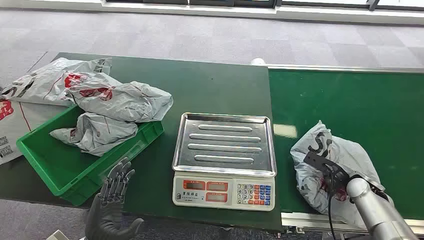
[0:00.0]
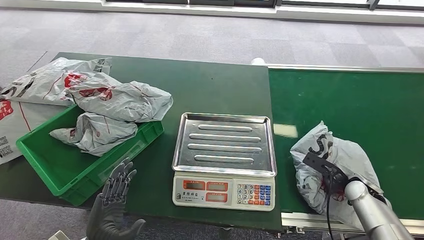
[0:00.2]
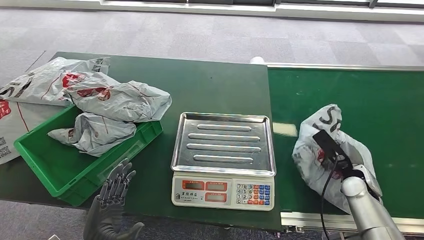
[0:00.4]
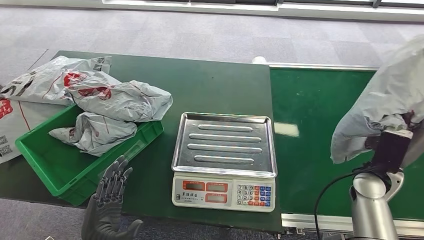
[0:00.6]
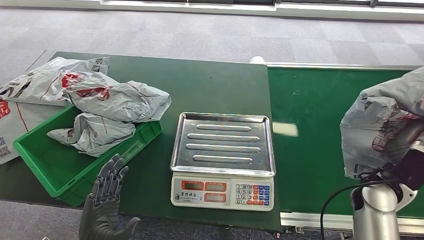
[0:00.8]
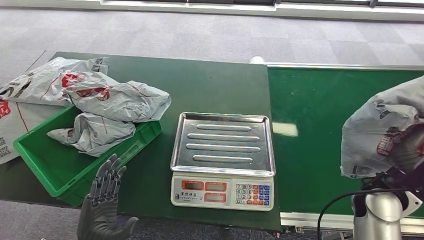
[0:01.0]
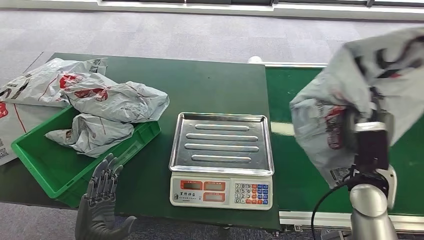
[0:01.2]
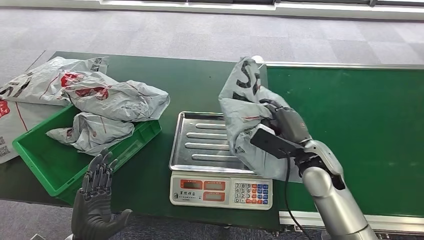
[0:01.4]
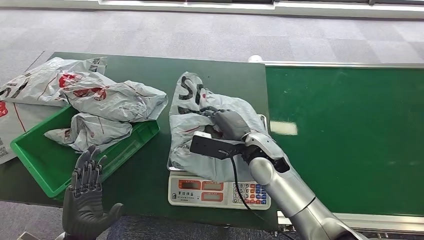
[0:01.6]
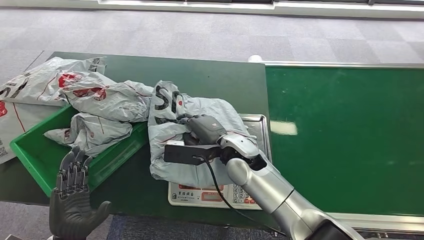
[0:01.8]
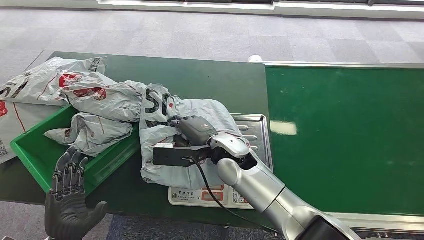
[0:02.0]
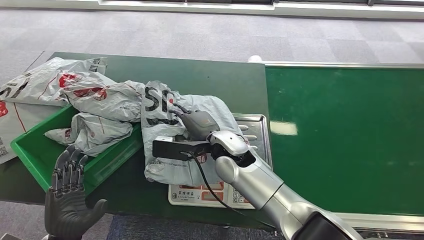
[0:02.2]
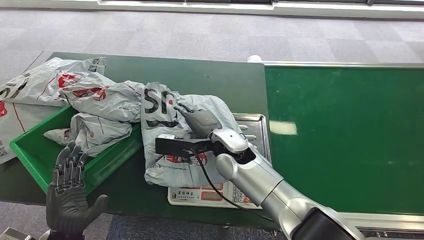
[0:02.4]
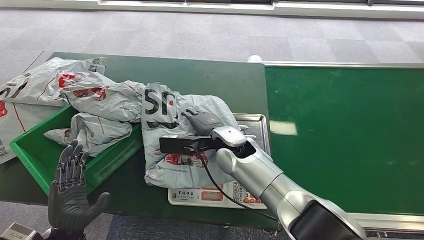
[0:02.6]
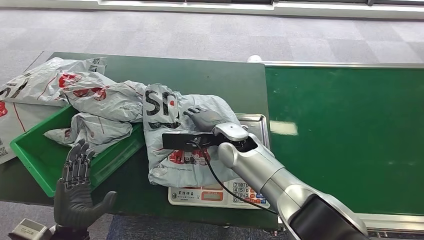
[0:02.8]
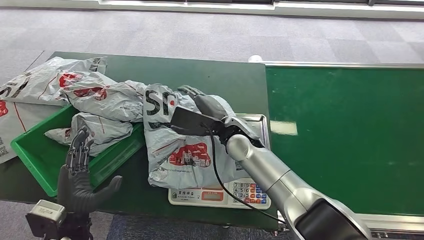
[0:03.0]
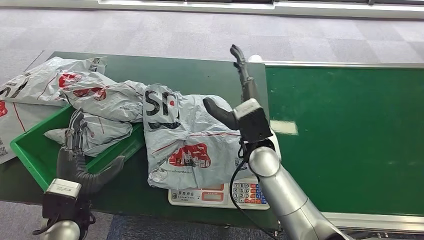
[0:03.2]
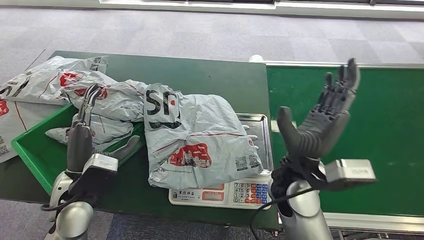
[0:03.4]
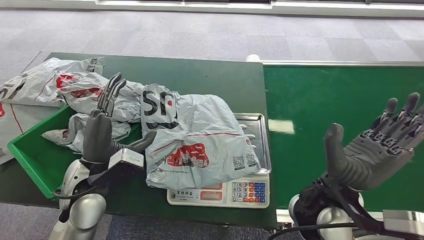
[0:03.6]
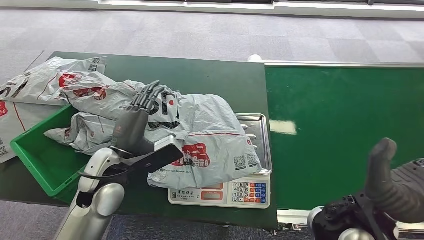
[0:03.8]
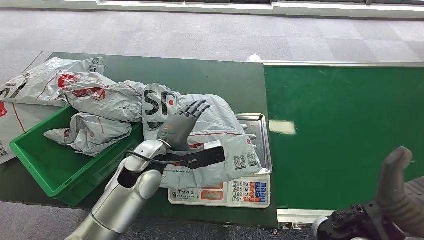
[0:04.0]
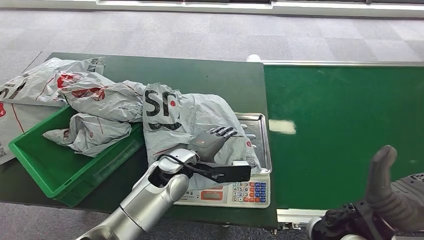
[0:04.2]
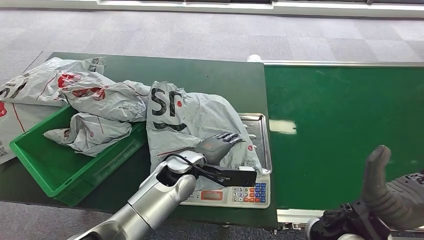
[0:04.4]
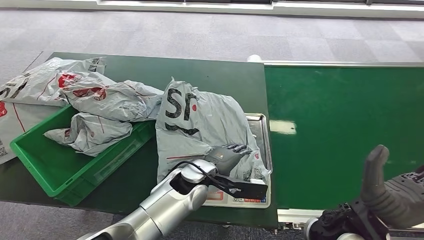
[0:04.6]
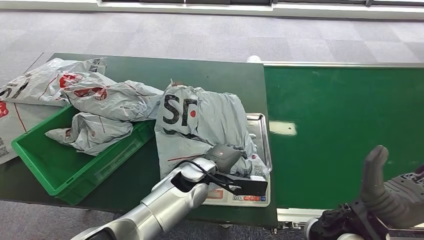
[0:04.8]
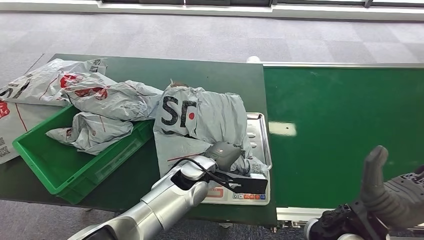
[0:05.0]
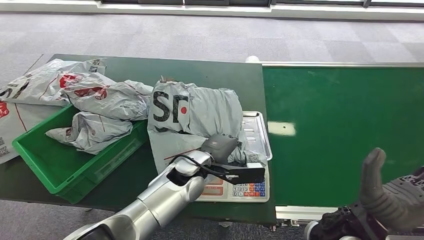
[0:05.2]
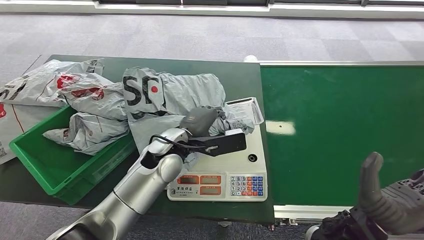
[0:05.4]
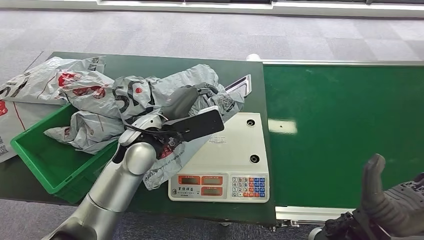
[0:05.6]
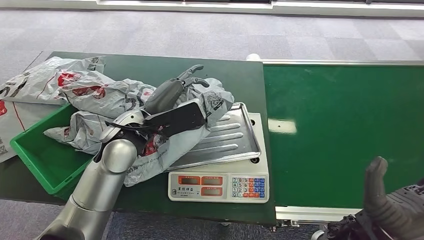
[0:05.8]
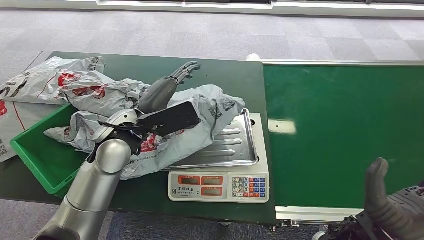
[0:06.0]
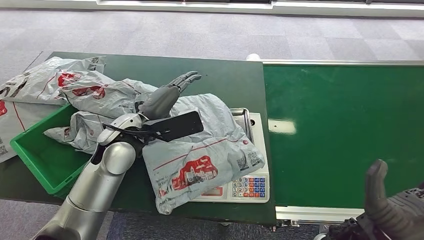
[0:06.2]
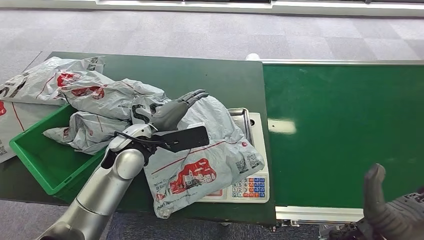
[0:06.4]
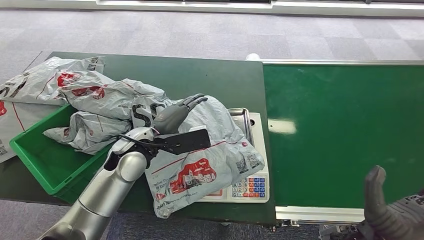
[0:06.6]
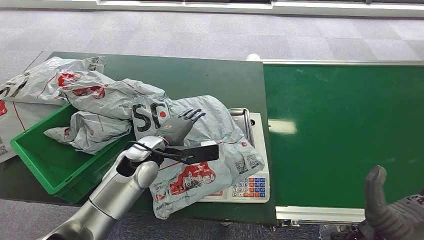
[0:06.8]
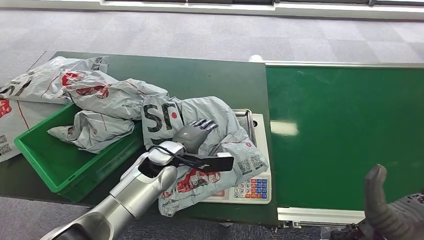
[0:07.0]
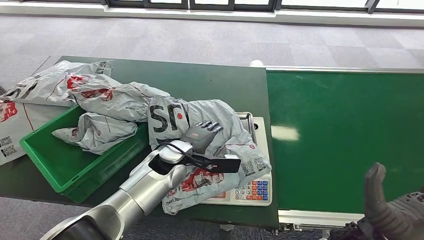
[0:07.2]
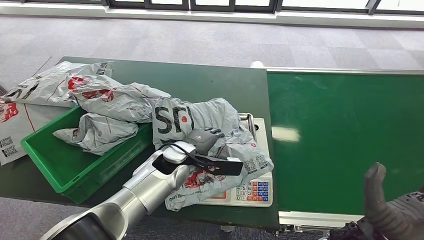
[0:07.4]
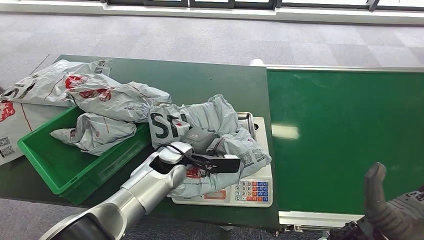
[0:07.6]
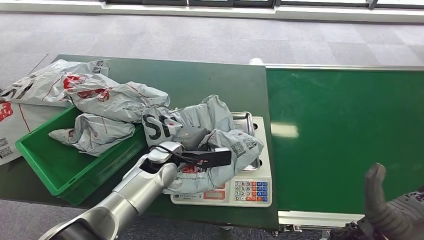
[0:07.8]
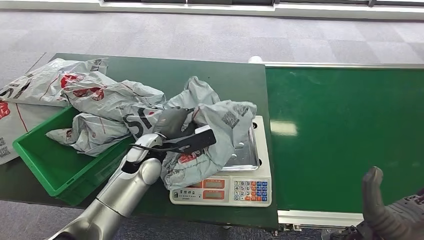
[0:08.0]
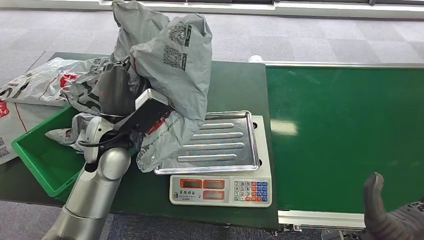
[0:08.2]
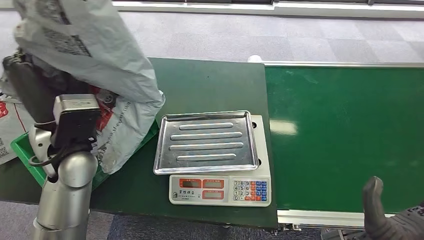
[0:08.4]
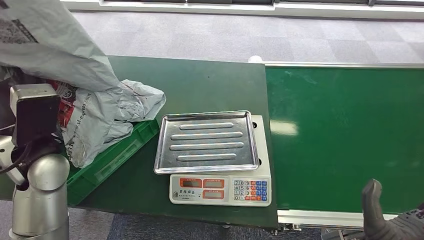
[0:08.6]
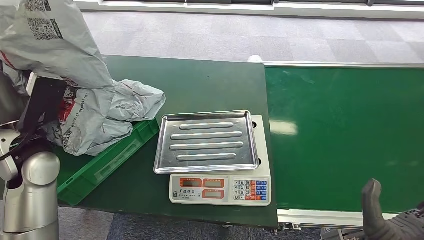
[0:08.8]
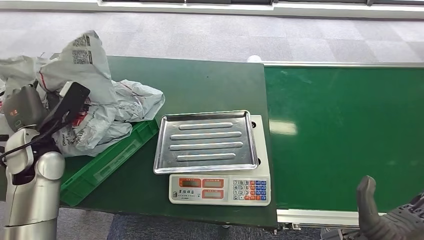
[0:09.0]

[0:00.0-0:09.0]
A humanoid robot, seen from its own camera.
Step, 0:00.0 to 0:01.0: Pick up the package from the conveyor belt.
Step, 0:01.2 to 0:03.8: Place the package onto the inbound machine.
Step, 0:04.0 to 0:05.6: Pick up the package from the inbound machine.
Step, 0:05.8 to 0:09.0: Place the package into the parcel locker.
0:01.6 to 0:03.0: The right hand goes roughly 5 cm to the left.
